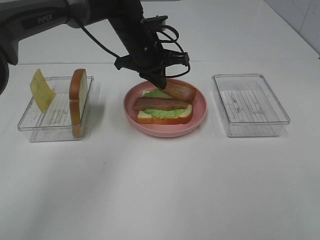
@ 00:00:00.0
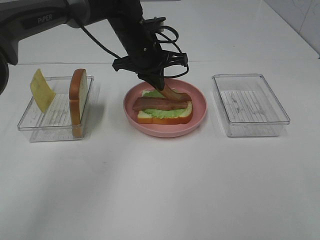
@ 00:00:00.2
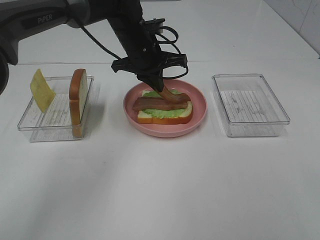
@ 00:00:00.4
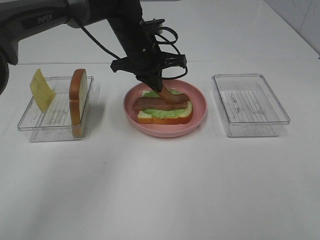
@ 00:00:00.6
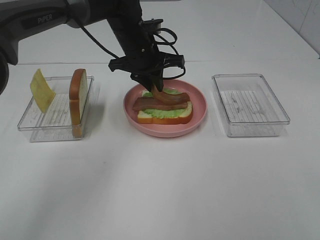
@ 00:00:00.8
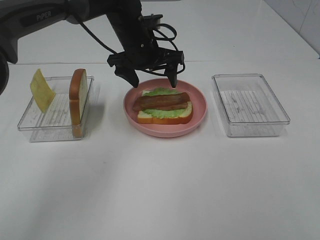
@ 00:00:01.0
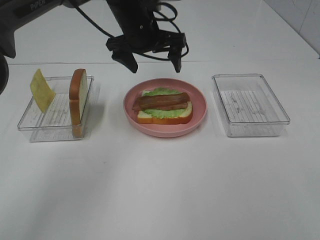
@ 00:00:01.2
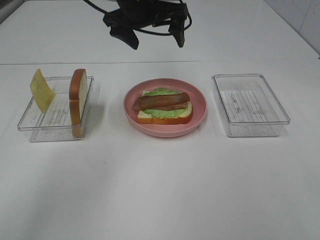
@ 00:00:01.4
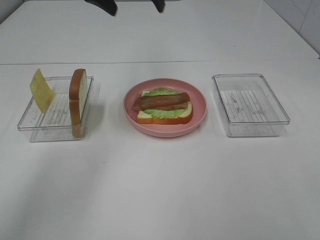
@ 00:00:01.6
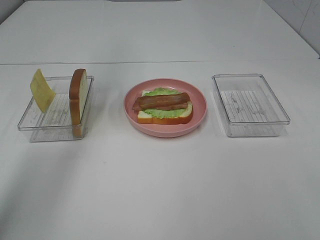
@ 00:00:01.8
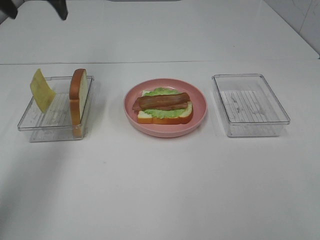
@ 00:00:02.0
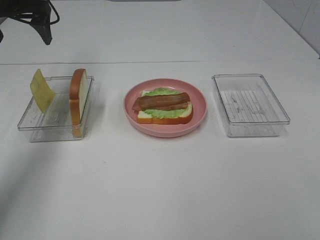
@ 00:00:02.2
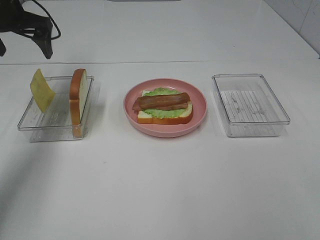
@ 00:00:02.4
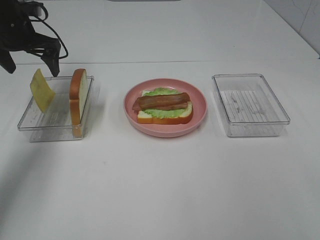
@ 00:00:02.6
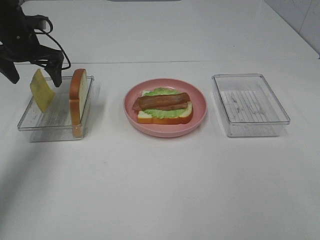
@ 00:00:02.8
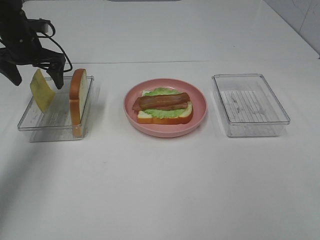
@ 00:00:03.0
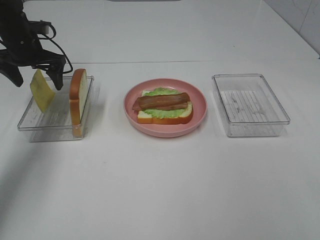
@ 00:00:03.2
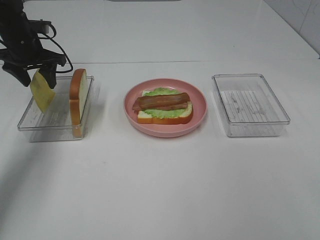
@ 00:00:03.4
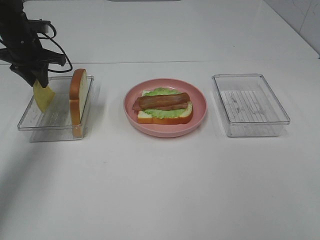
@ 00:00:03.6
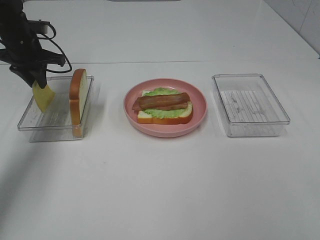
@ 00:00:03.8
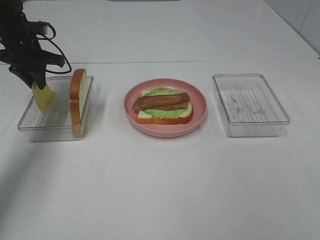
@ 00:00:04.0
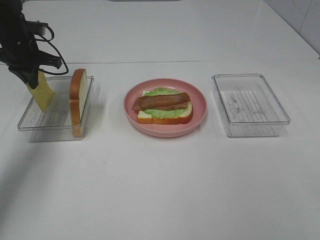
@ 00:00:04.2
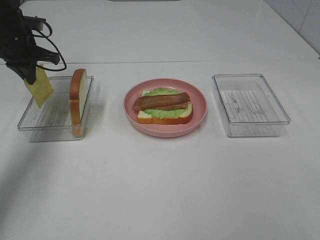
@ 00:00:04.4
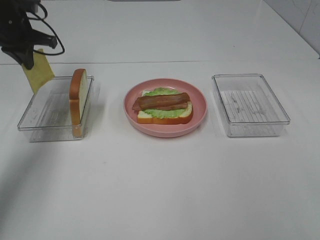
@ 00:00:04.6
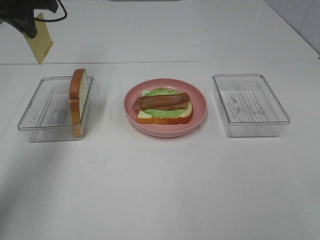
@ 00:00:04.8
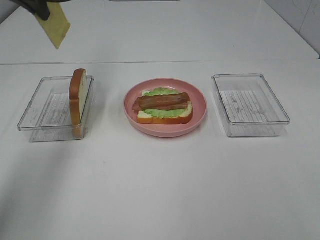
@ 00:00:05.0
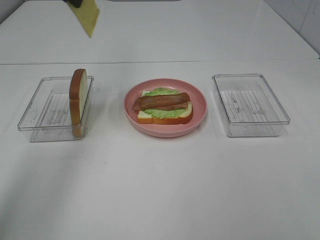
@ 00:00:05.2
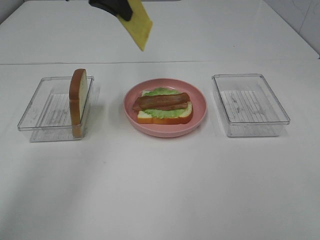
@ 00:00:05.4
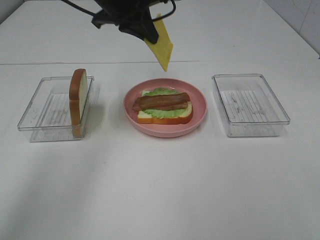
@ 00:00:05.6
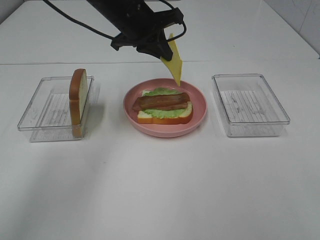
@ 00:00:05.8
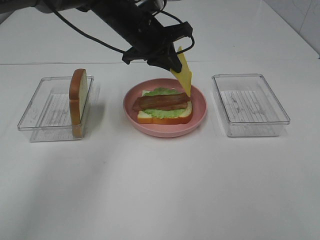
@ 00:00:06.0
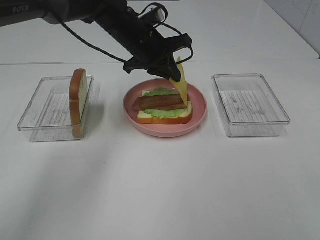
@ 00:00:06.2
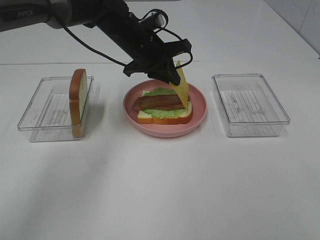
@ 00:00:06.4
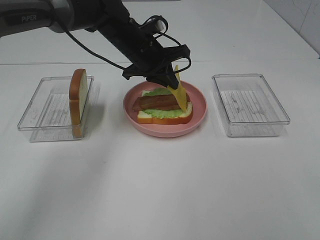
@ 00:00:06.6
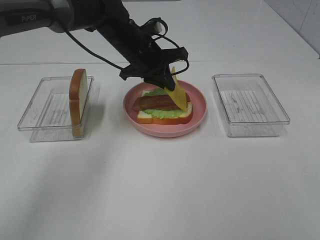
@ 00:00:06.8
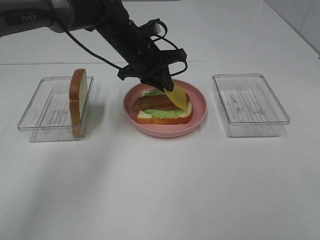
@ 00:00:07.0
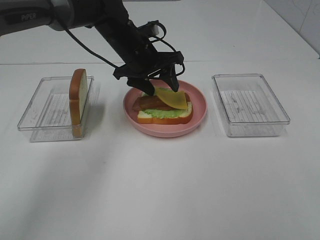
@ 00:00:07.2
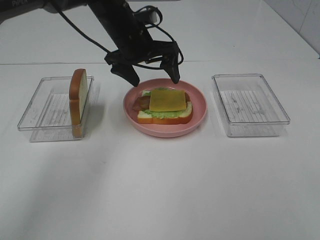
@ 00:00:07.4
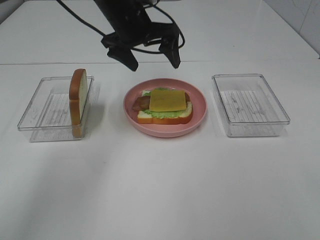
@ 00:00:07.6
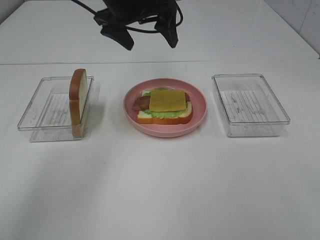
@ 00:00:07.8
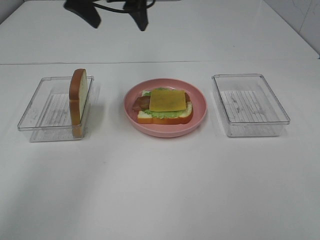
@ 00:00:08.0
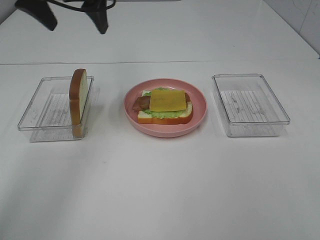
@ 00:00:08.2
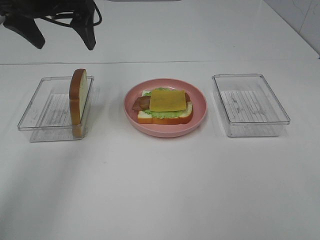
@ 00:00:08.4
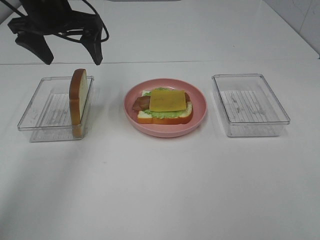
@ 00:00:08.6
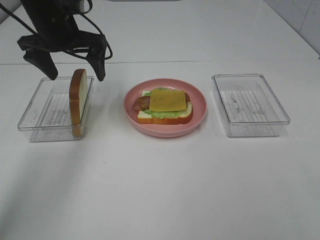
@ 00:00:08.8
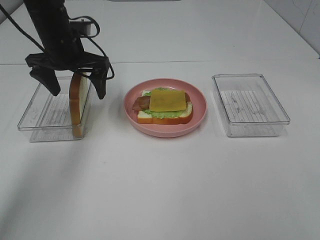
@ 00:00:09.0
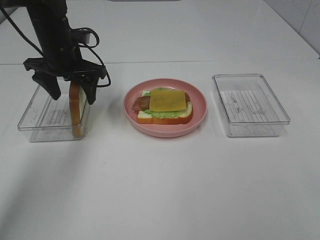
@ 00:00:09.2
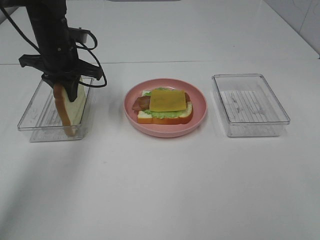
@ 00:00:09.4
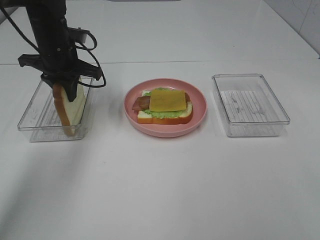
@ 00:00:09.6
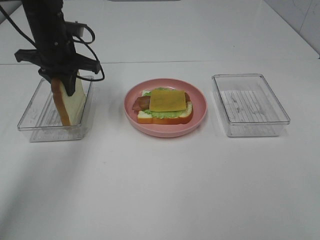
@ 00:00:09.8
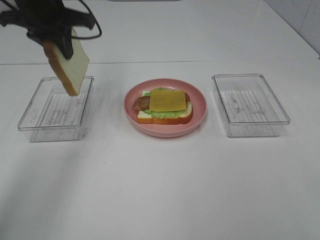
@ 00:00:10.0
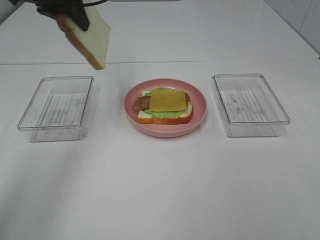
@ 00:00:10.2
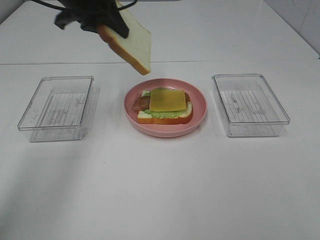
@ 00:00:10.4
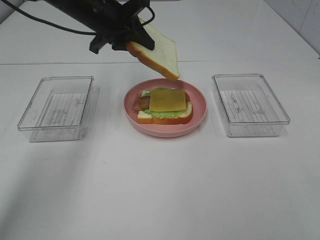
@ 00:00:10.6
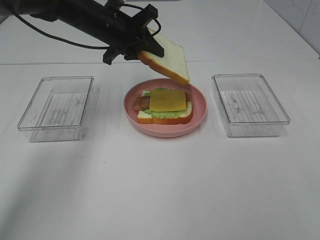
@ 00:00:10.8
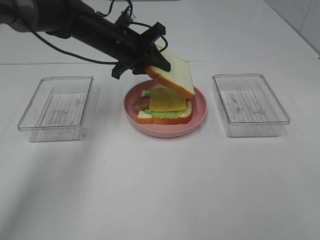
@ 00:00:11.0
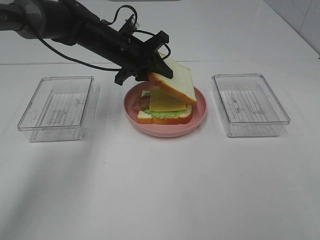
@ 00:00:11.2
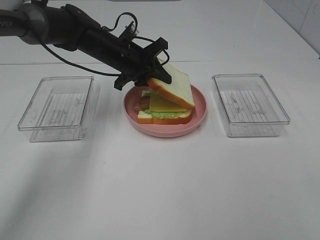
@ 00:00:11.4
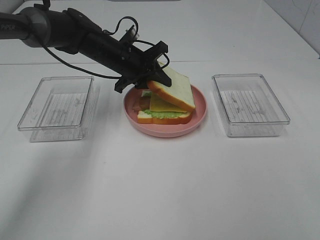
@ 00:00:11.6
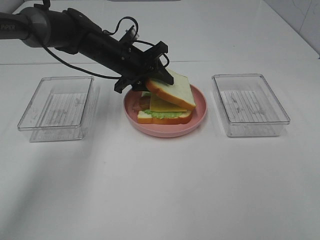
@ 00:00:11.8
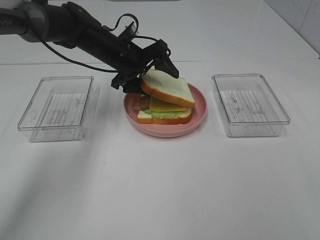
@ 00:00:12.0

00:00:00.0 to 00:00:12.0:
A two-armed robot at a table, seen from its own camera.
Task of the whole recording: Make sandwiches.
Step, 00:00:01.2 to 00:00:04.4: Left hand:grab the cheese slice.
Step, 00:00:04.6 to 00:00:07.4: Left hand:place the cheese slice on top of the bacon.
Step, 00:00:07.6 to 00:00:09.4: Left hand:grab the bread slice.
00:00:00.0 to 00:00:01.6: The left gripper shifts about 20 cm upward and to the left, and opens.
00:00:01.6 to 00:00:03.0: The left gripper goes about 25 cm to the left and downward.
00:00:03.0 to 00:00:04.4: The left gripper closes up.
00:00:04.4 to 00:00:06.0: The left gripper travels to the right by roughly 25 cm.
00:00:06.0 to 00:00:07.6: The left gripper opens up.
00:00:07.6 to 00:00:09.0: The left gripper heads to the left and downward, covering some 15 cm.
00:00:09.0 to 00:00:10.4: The left gripper moves upward, roughly 10 cm, and closes up.
00:00:10.4 to 00:00:12.0: The left gripper heads downward, covering about 15 cm, and opens.

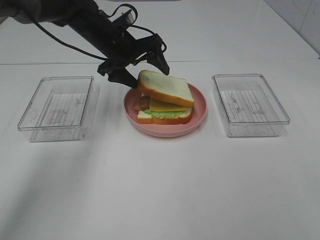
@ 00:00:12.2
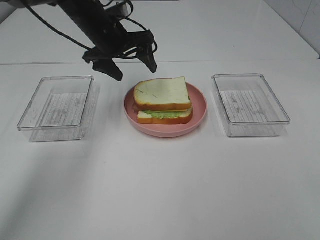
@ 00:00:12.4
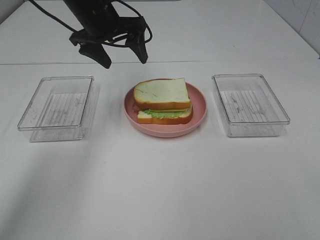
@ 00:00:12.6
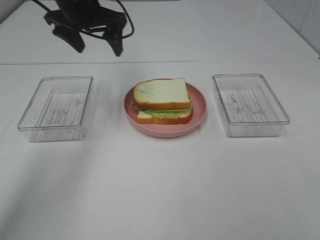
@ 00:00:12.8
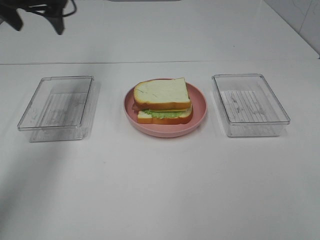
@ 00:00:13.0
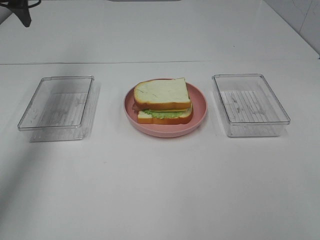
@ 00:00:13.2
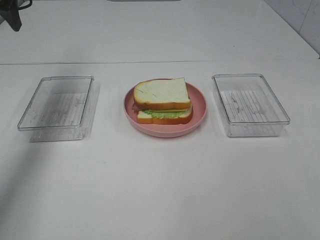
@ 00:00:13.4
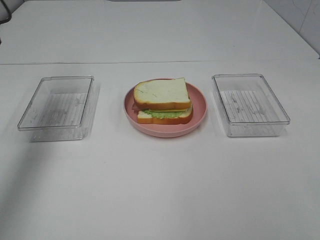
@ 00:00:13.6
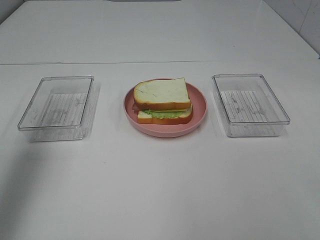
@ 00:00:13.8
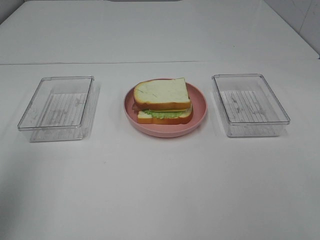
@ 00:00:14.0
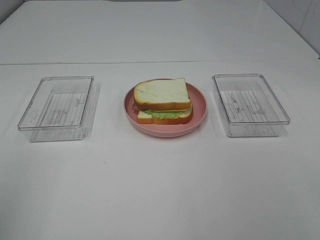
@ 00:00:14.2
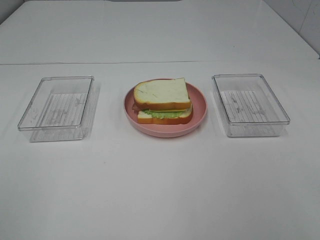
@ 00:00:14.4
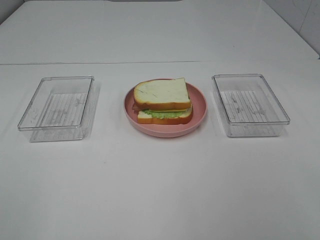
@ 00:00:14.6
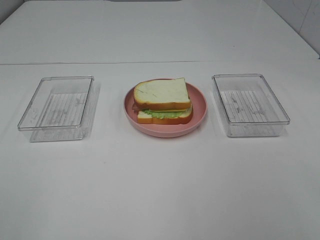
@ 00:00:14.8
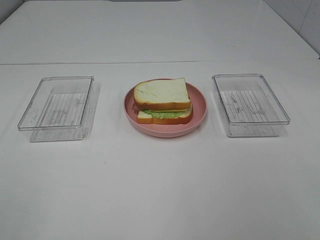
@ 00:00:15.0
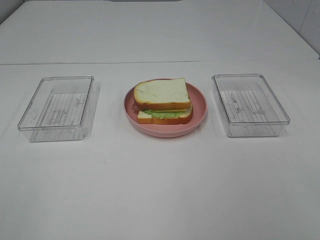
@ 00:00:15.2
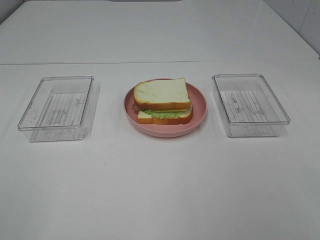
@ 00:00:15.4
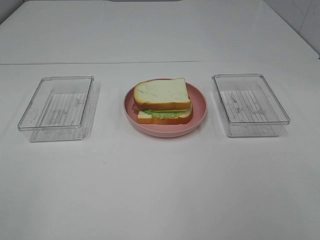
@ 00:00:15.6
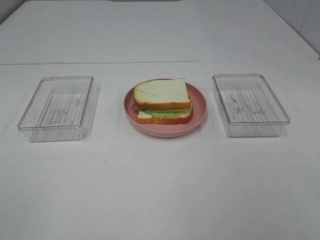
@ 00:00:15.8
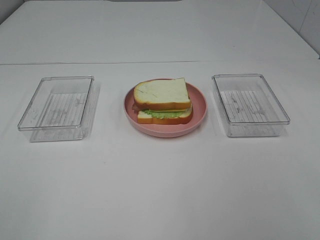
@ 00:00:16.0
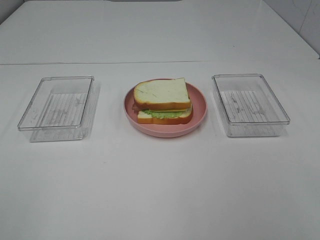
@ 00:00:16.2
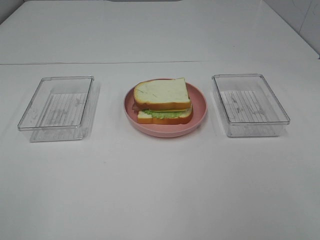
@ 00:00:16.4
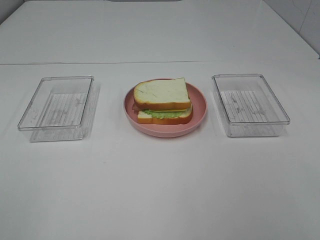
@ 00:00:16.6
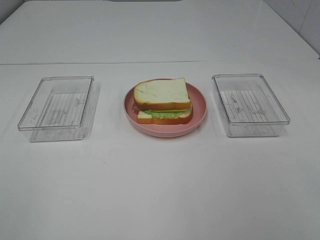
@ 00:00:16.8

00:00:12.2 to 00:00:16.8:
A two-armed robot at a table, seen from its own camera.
Task of the whole recording: Make sandwiches.
00:00:12.2 to 00:00:13.8: The left gripper is displaced backward, to the left and upward by roughly 35 cm.
00:00:13.8 to 00:00:15.2: The left gripper shifts roughly 25 cm backward.
00:00:15.2 to 00:00:16.8: Both grippers stay about where they are.
